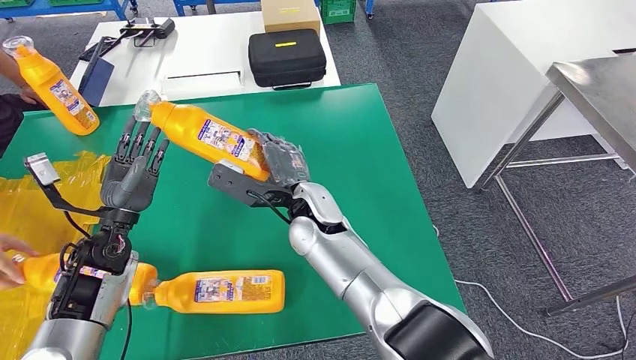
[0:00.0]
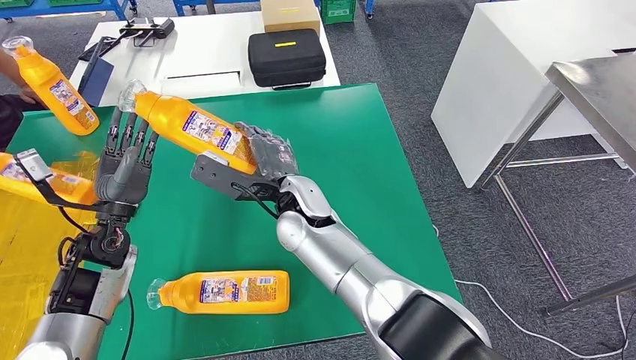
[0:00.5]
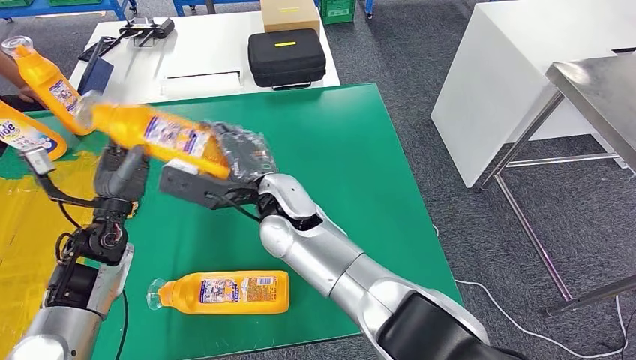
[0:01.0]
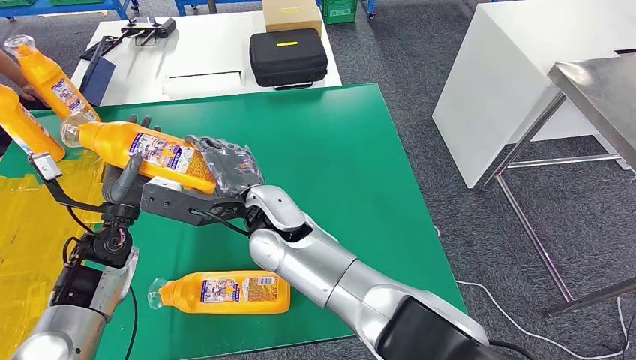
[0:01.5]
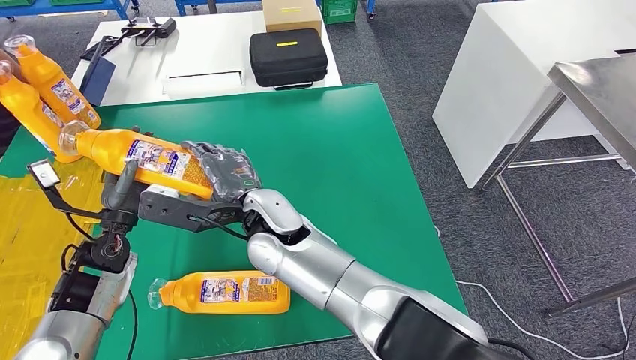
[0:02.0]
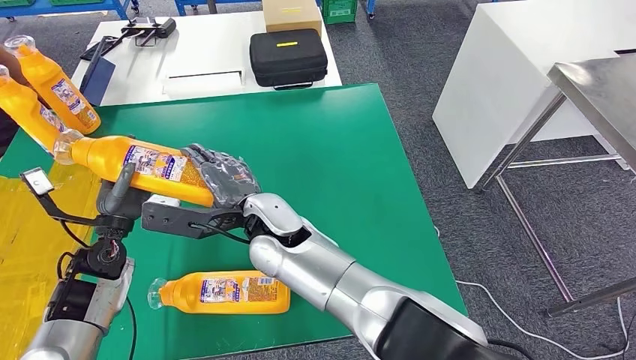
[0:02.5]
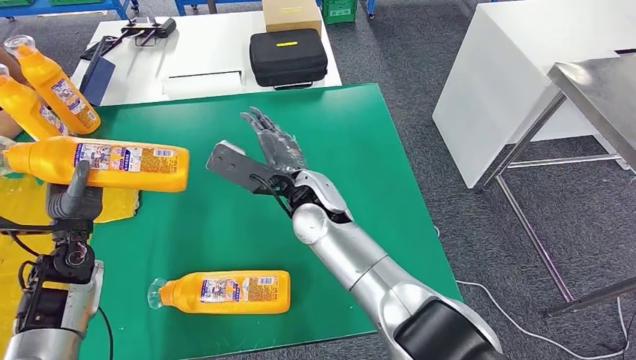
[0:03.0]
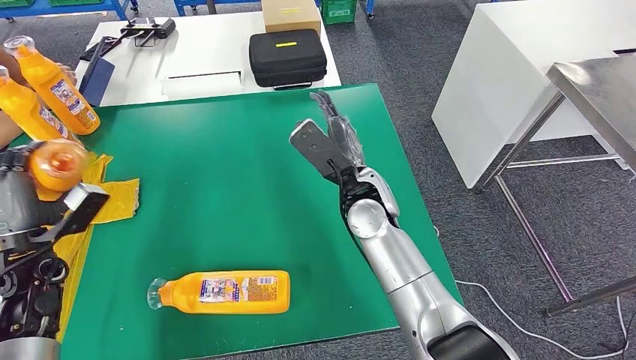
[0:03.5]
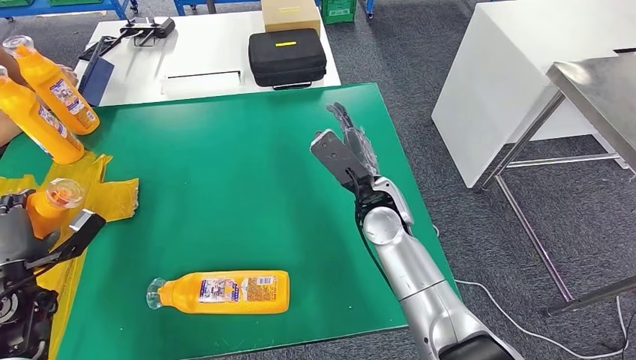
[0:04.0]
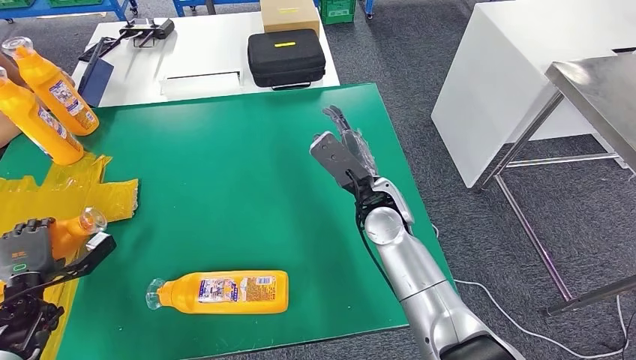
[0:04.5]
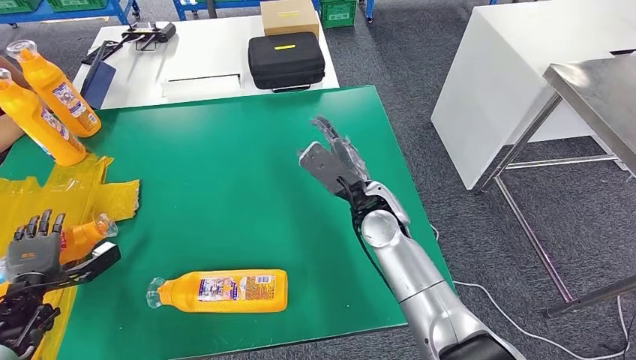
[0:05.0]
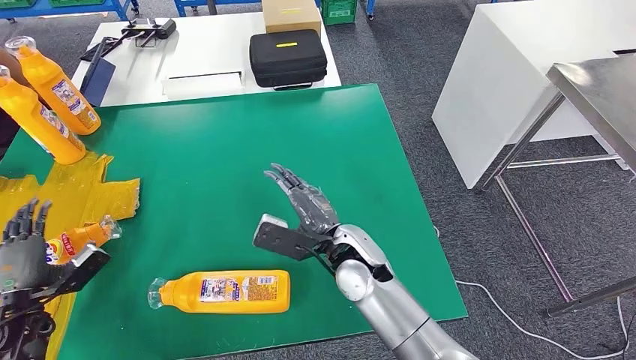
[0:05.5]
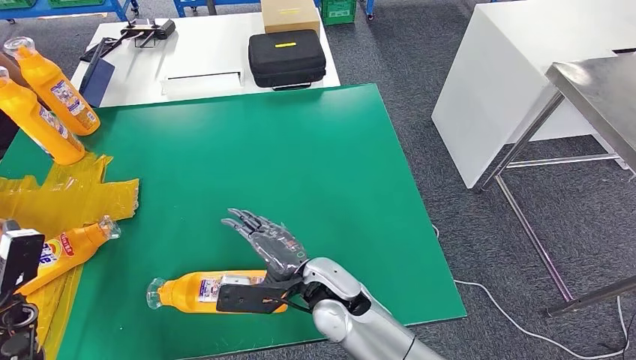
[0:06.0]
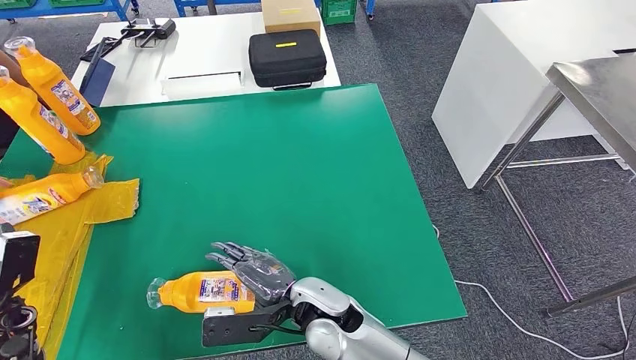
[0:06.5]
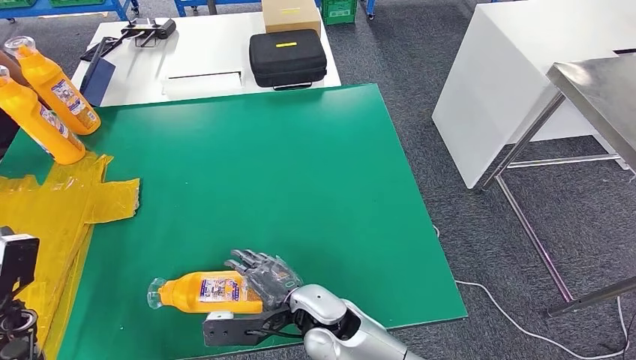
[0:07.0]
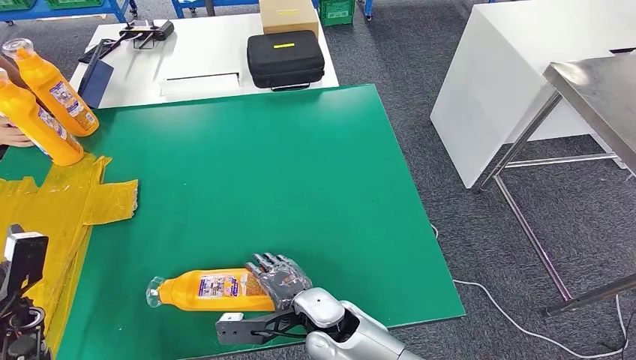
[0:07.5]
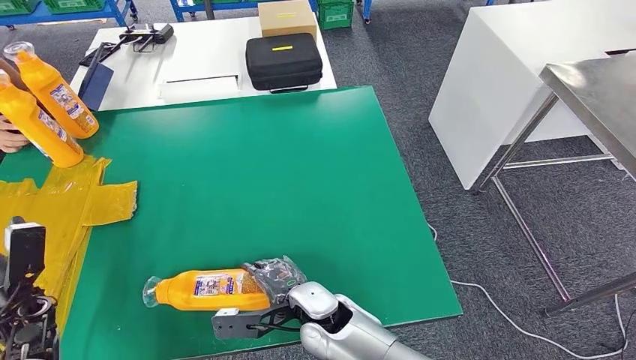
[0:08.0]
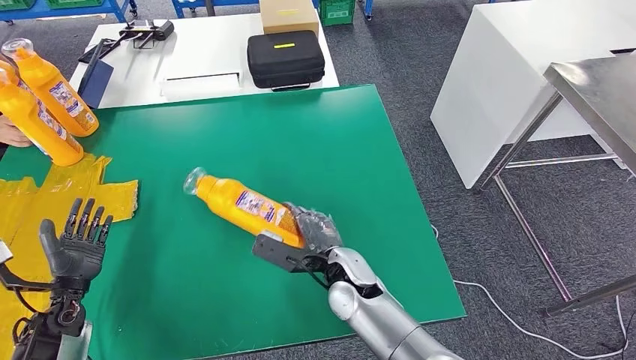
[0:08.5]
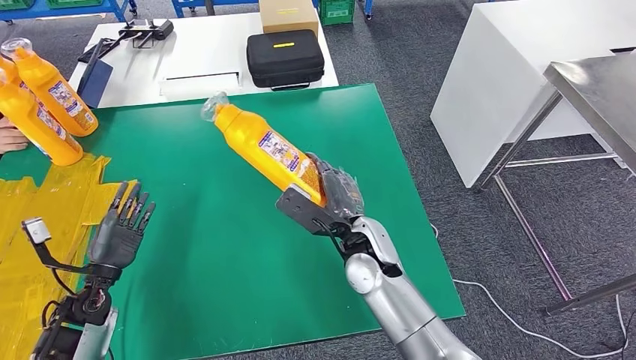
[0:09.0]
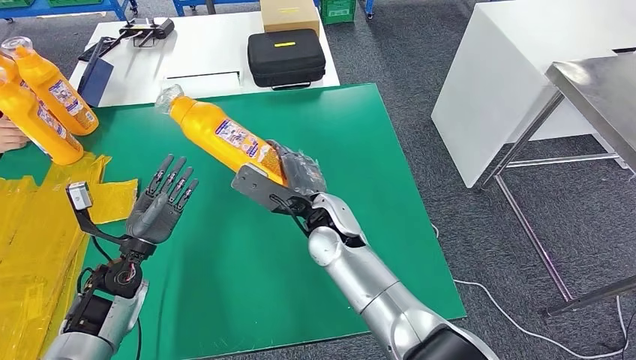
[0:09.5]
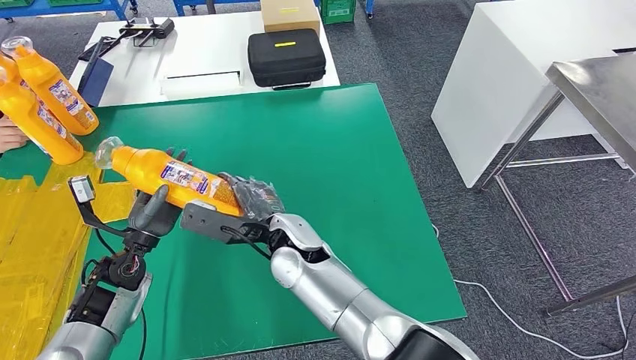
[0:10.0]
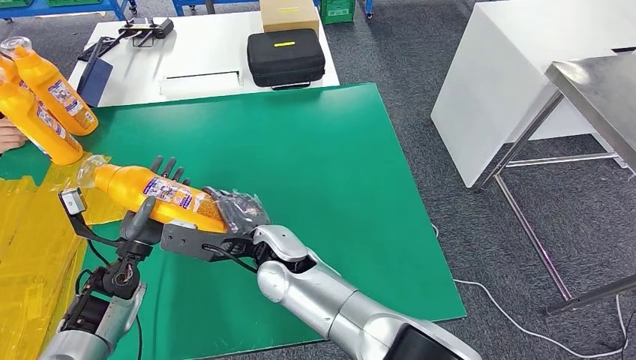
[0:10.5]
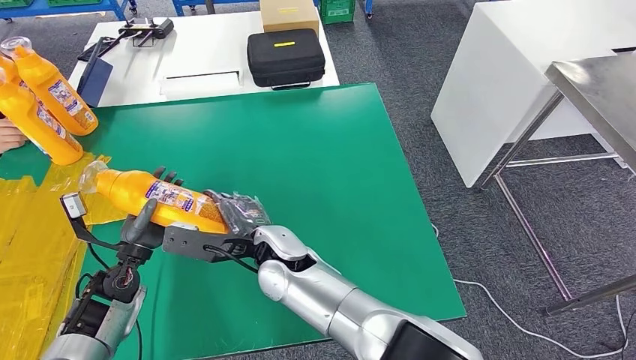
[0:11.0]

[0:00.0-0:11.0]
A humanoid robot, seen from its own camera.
Step, 0:00.0 to 0:04.5: Flip the fast-moving consumer goods bottle to the front side.
Step, 0:05.0 to 0:09.5: Pick up the fast-moving consumer goods bottle from the table.
0:03.5 to 0:05.5: The right hand shifts approximately 10 cm backward and downward; the left hand is displaced downward, backward and to the left by about 15 cm.
0:05.5 to 0:07.5: The right hand shifts about 15 cm backward, downward and to the left.
0:07.5 to 0:09.0: The left hand moves to the right, roughly 10 cm, while the right hand is displaced forward, upward and to the right by roughly 15 cm.

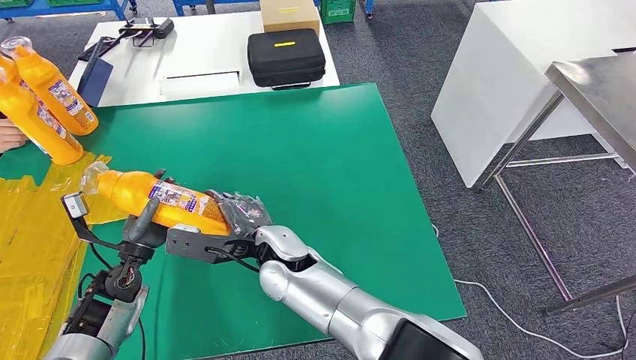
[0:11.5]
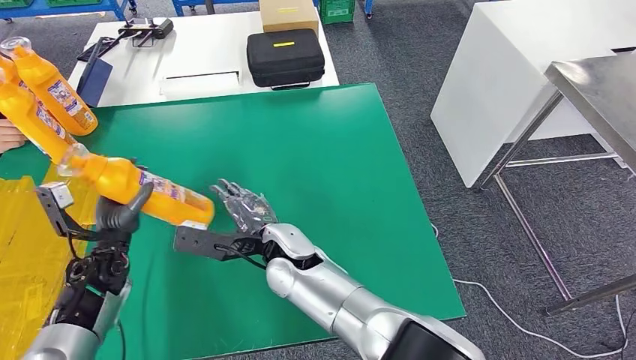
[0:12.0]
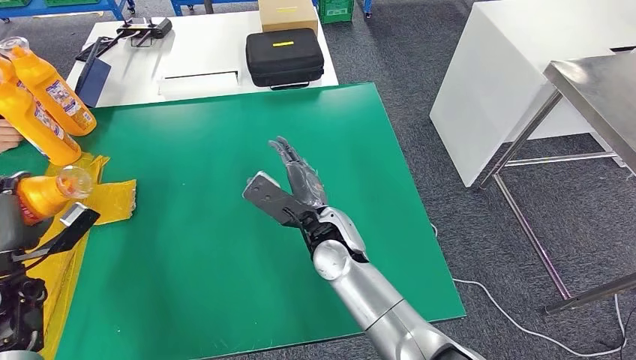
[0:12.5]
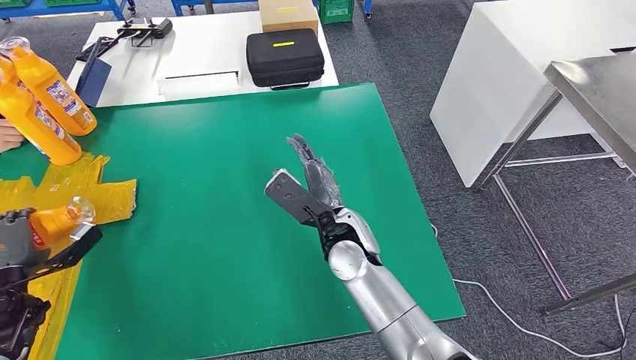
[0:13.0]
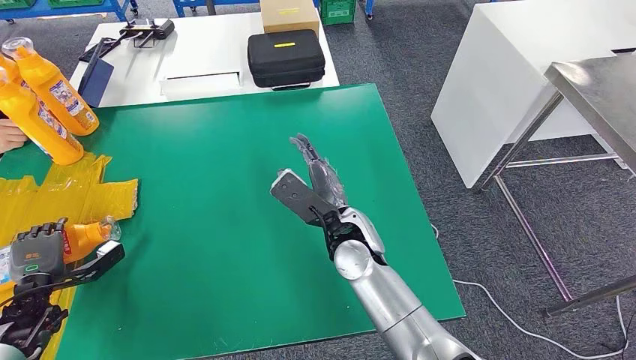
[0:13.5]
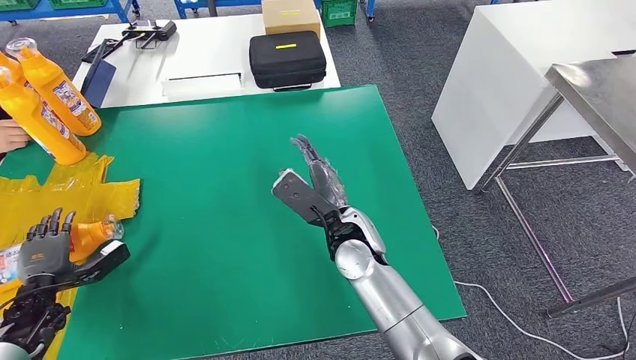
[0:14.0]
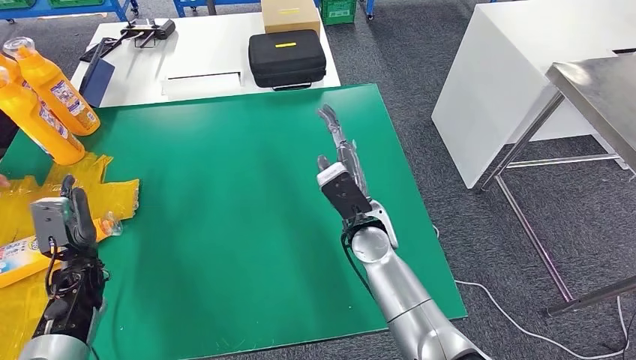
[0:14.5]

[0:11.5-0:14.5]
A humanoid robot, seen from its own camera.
Step, 0:11.5 to 0:14.5: Flip the fast-moving consumer goods bottle to the front side.
